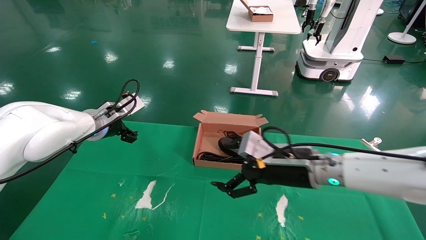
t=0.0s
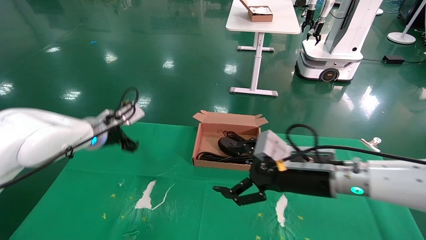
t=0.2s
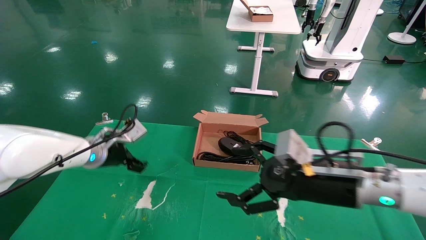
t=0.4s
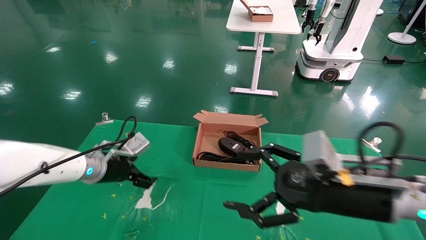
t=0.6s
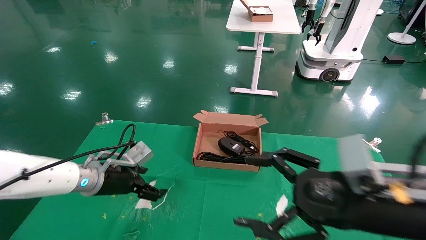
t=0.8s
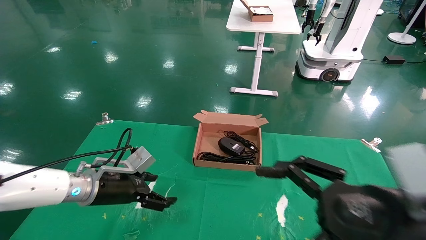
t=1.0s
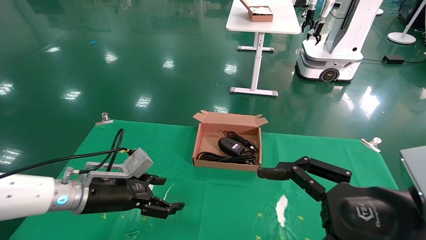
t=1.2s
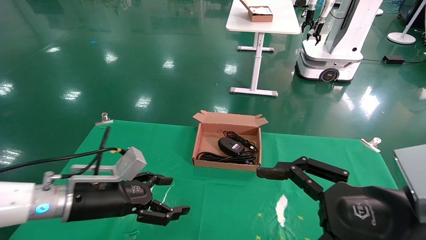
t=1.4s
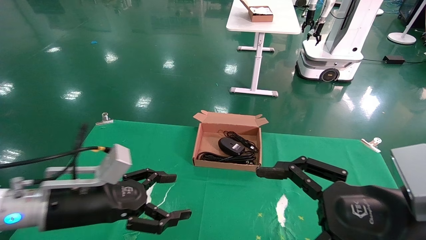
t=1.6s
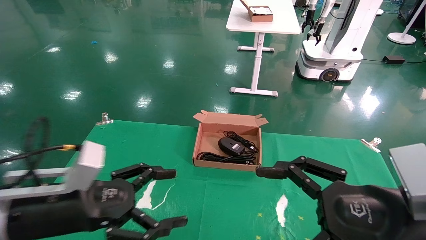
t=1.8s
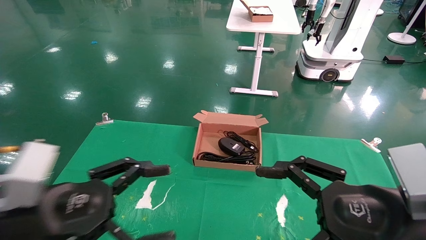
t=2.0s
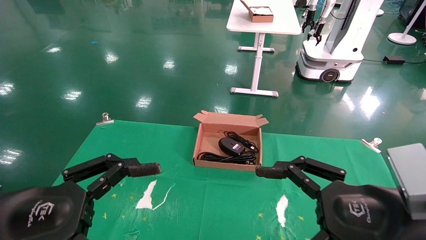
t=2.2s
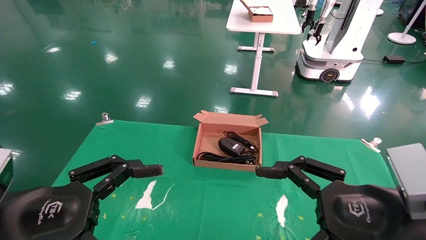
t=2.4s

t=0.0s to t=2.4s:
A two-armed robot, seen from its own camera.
t=0.0s to t=1.2s: The right gripper is displaced backward and to the right by some 20 cm. Meanwhile the left gripper heads backward and downward, covering roughly 15 cm.
t=1.2s to t=2.4s: The left gripper heads backward, covering about 20 cm.
